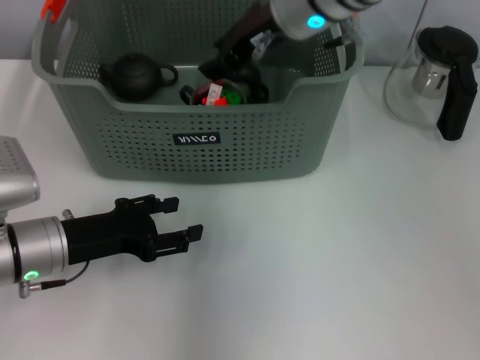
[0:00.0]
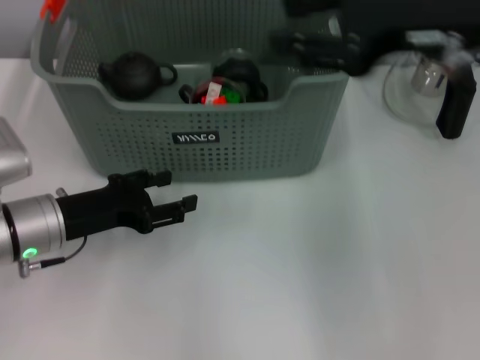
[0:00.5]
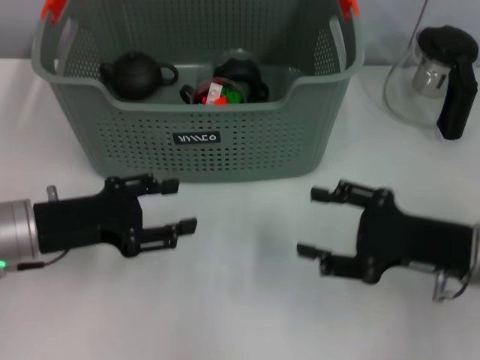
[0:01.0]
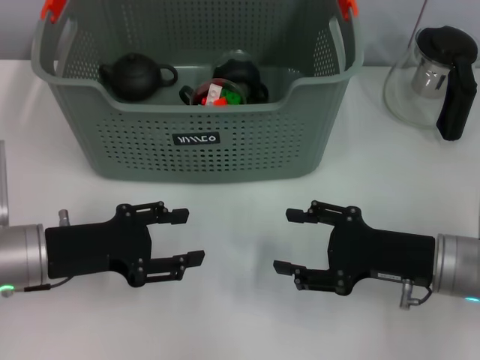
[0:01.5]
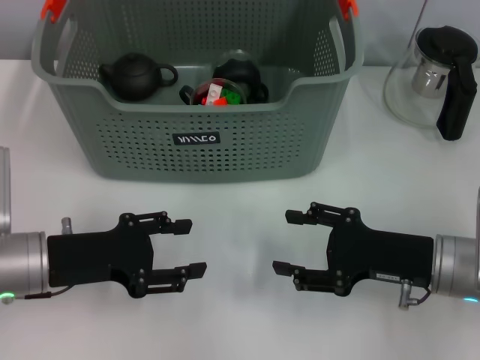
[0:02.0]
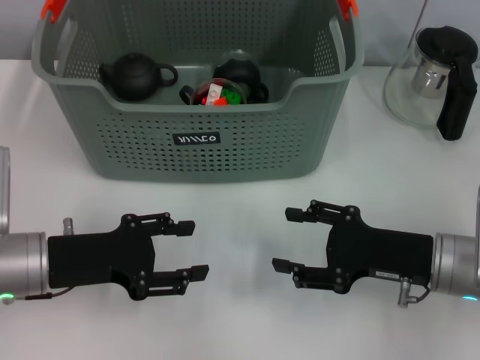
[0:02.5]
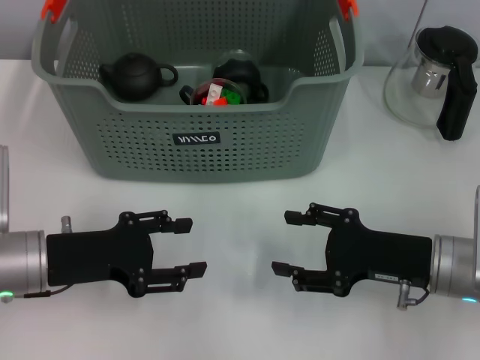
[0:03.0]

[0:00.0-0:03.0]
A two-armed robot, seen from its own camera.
Task of the whole recording: pick up the teacup on the table and place it into the storage bin, pick up the block on the table and place it into the storage bin.
0:00.0 to 0:01.5: The right gripper shifts some 30 cm downward, to the right and backward, and opens up.
0:01.5 to 0:03.0: The two grippers keep their place.
